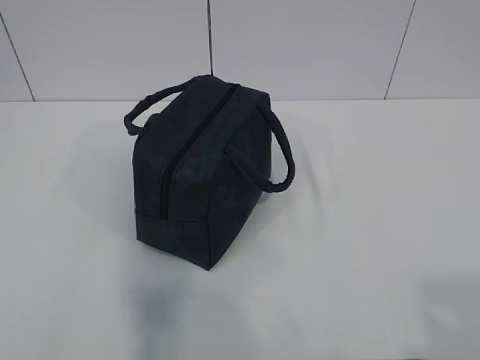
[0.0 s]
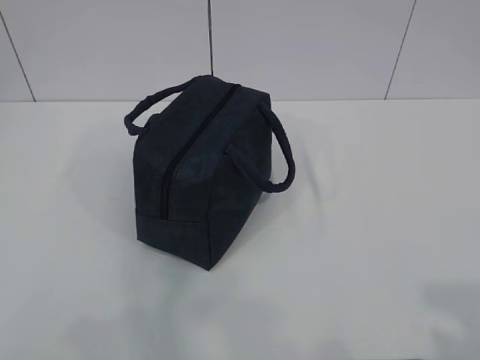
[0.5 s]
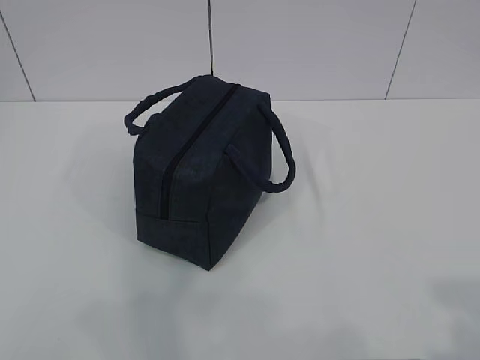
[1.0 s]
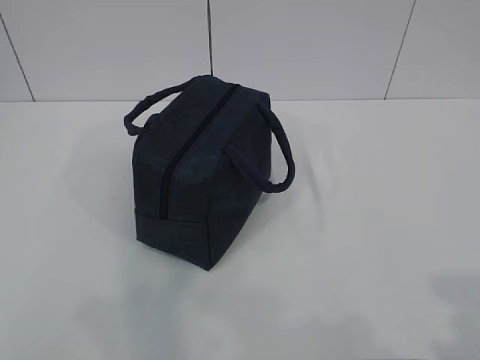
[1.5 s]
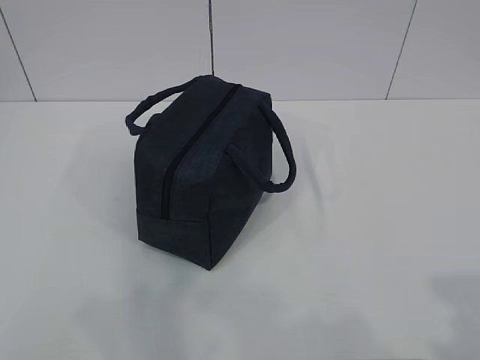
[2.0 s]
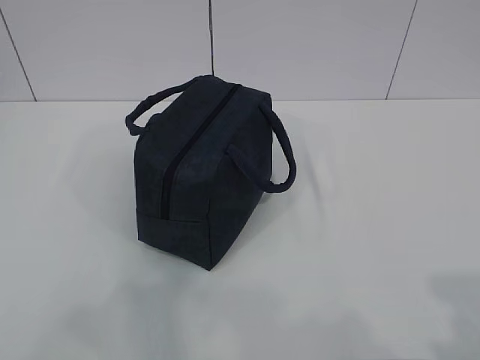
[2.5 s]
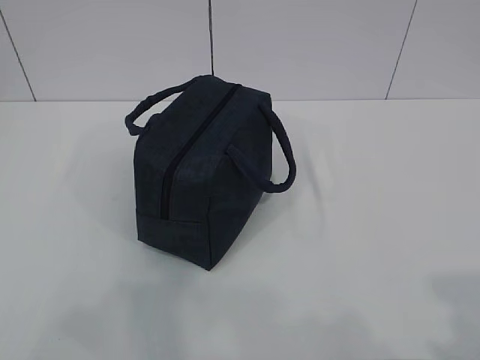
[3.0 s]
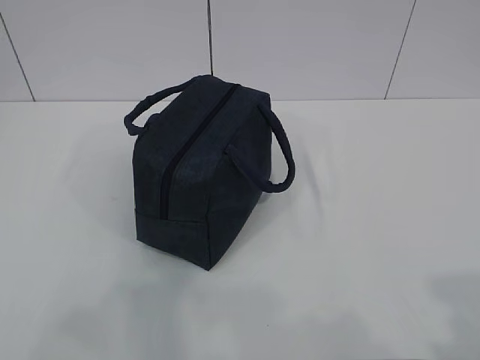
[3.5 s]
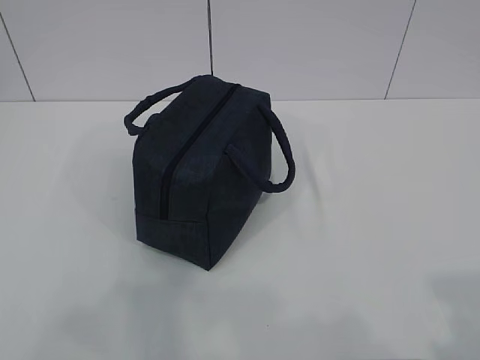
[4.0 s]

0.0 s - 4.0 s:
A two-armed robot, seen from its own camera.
0.0 s - 2.0 s: The grippers make only small movements.
2.0 s - 4.0 s: The grippers stay close to where they were, moving slightly.

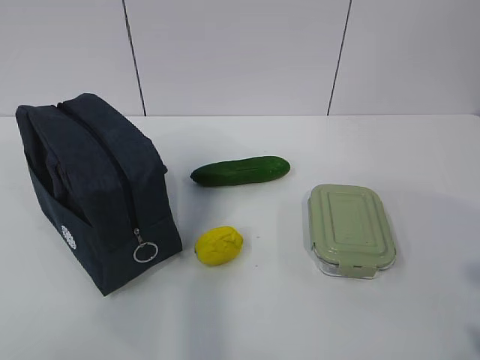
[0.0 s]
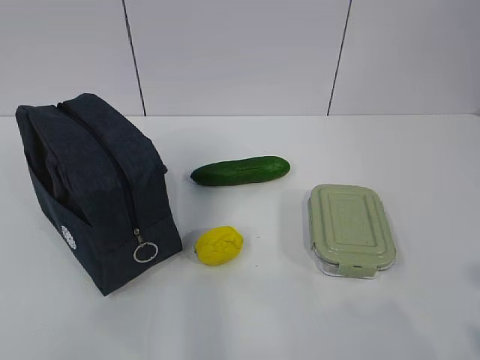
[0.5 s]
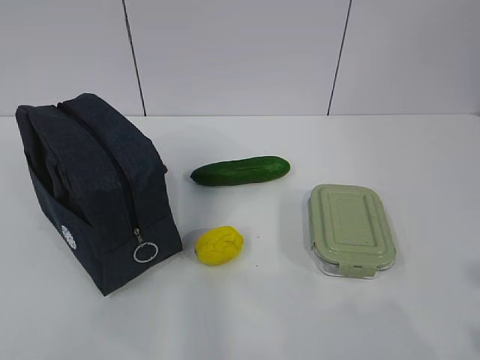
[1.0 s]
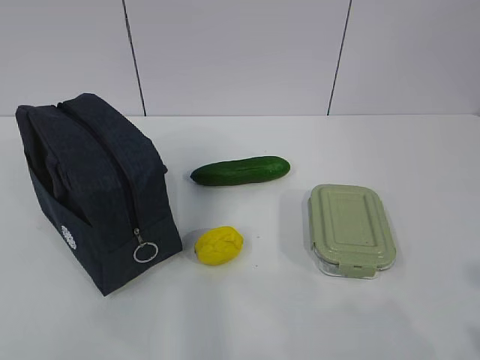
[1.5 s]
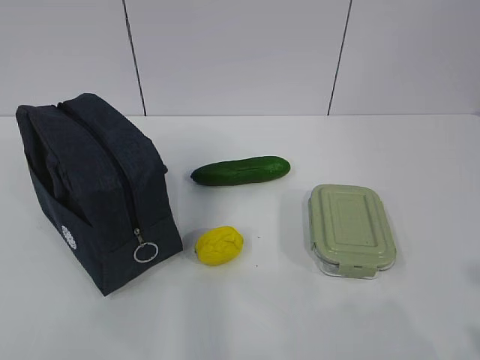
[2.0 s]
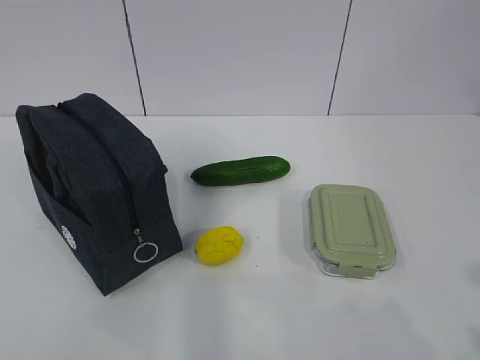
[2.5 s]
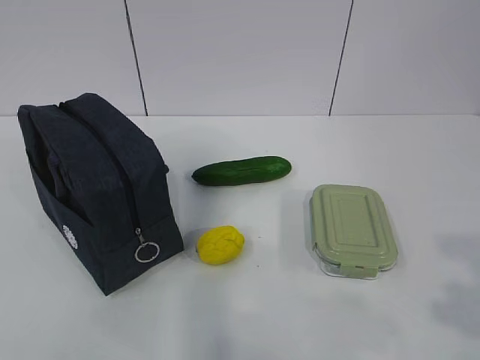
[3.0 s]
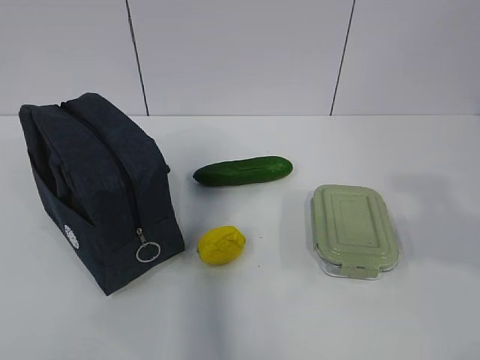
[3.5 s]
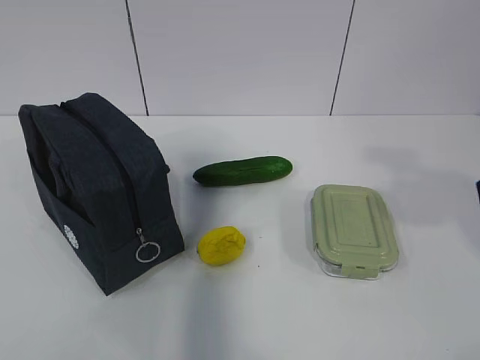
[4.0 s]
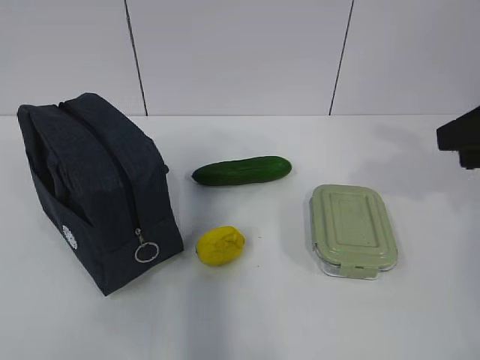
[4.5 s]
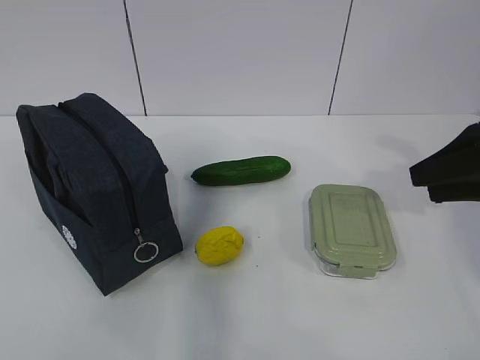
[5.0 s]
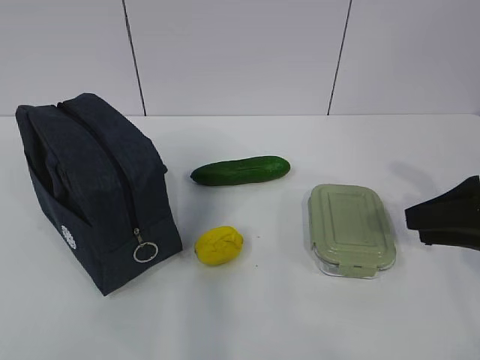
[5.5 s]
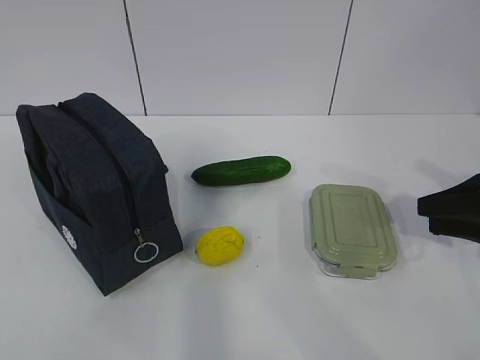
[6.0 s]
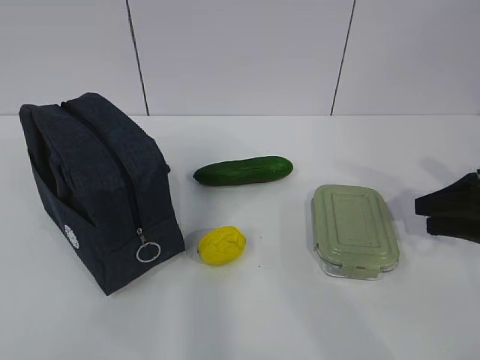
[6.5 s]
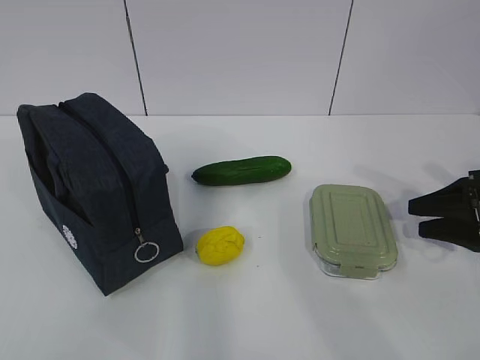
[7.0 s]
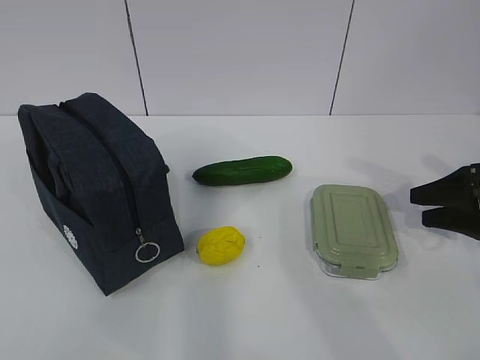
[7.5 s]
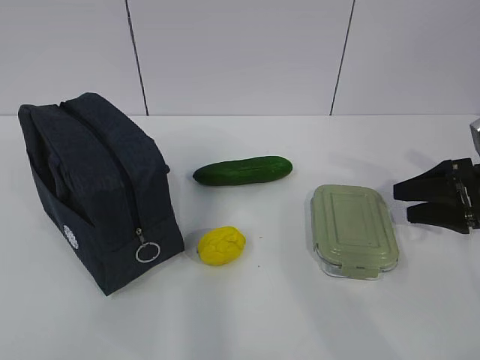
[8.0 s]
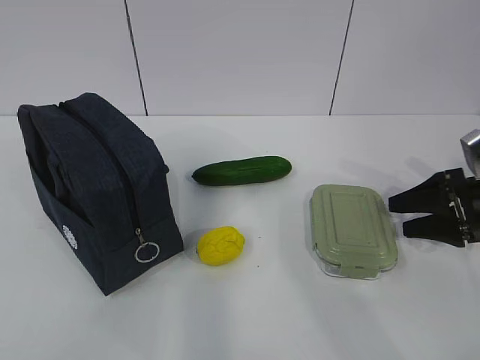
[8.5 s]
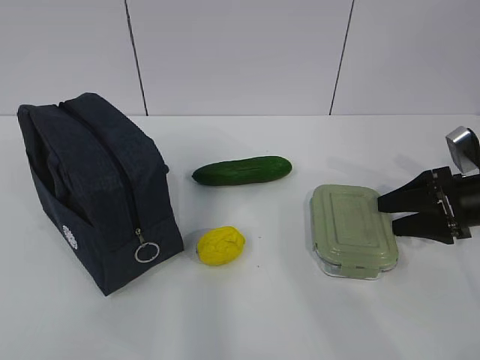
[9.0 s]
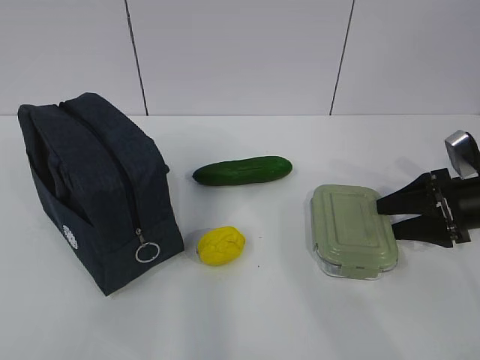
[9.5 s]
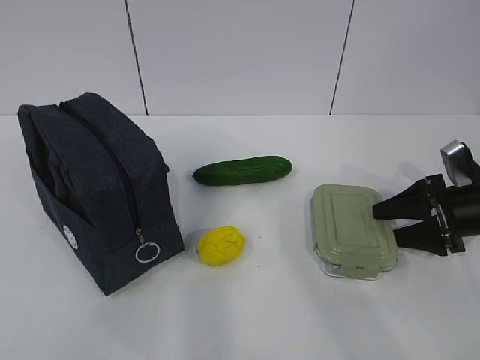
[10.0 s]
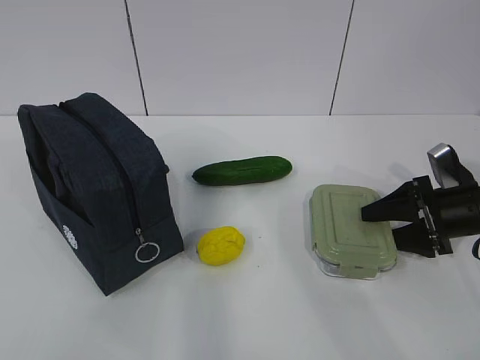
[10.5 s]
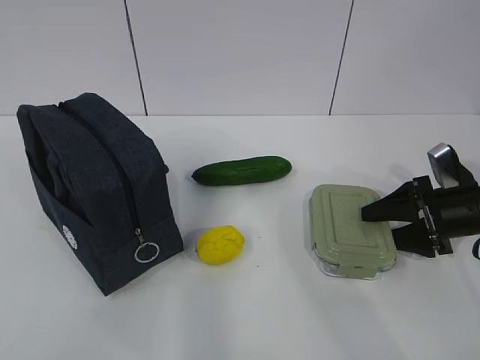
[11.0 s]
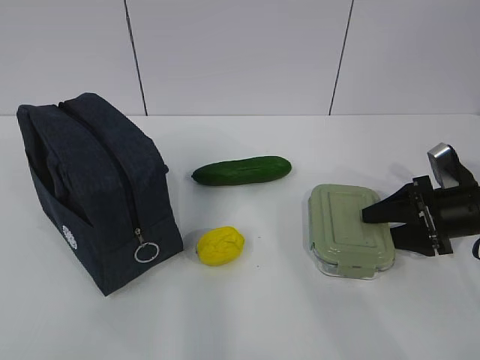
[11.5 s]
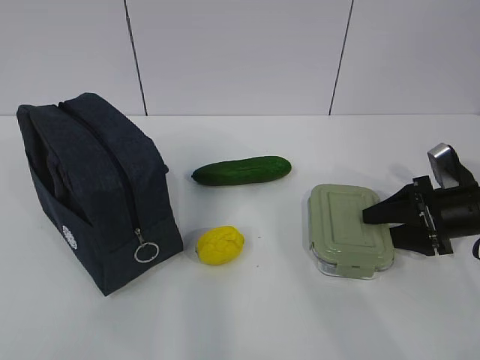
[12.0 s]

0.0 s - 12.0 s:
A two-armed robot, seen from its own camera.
2.0 s - 4.0 s: The right gripper heads forward, covering approximately 20 cm.
4.0 s - 6.0 s: The right gripper moves downward, forward and to the right, about 20 cm.
6.0 s - 8.0 s: The right gripper moves forward, some 5 cm.
8.0 s - 12.0 s: There are only small adjustments of the grippers.

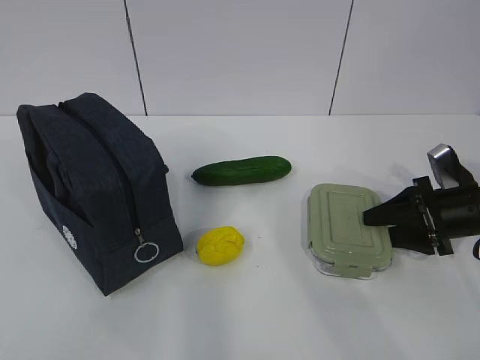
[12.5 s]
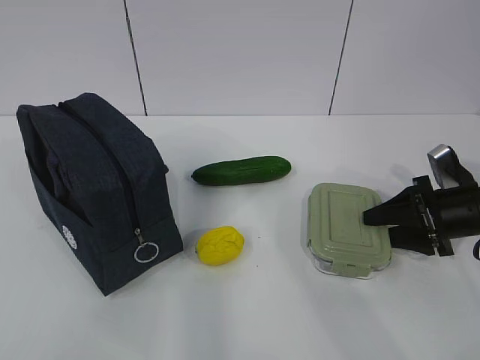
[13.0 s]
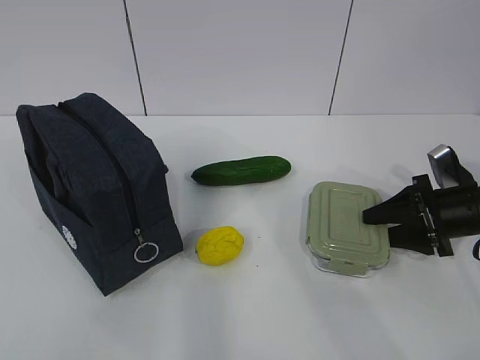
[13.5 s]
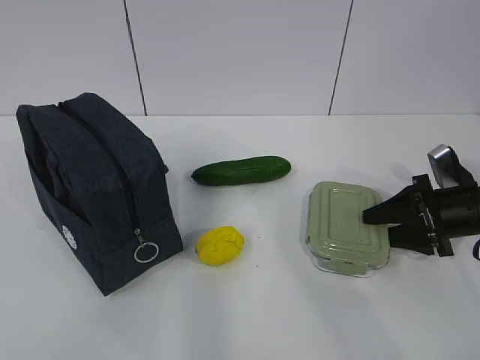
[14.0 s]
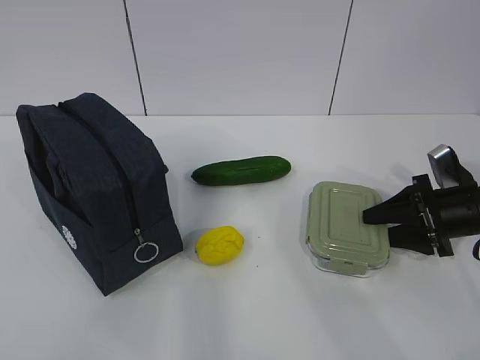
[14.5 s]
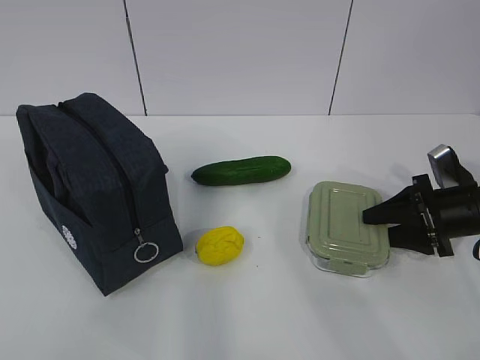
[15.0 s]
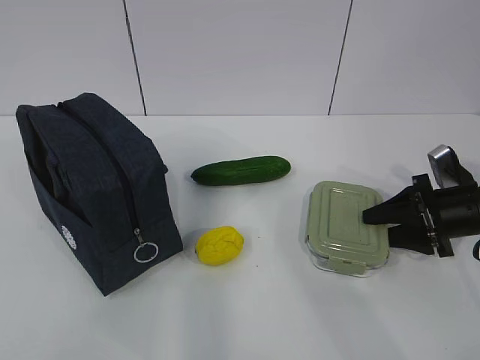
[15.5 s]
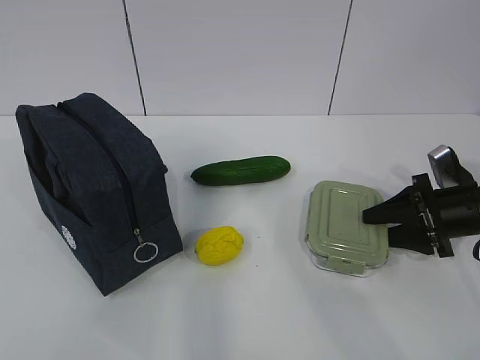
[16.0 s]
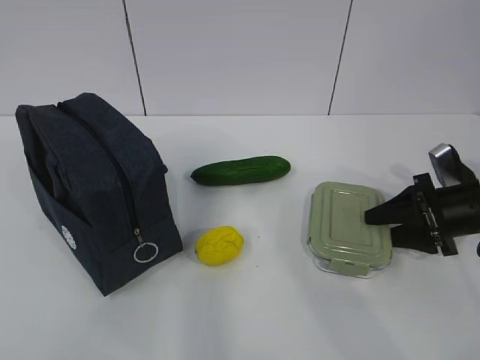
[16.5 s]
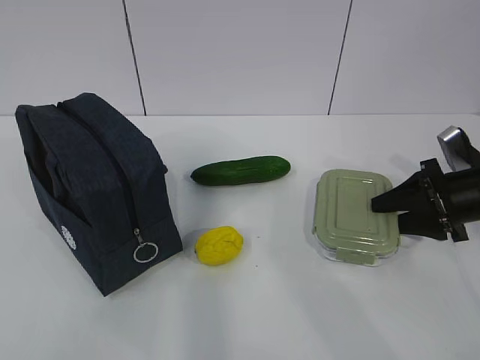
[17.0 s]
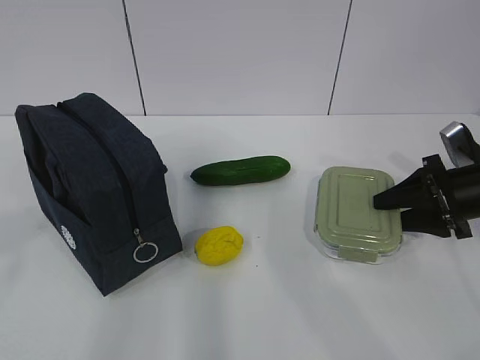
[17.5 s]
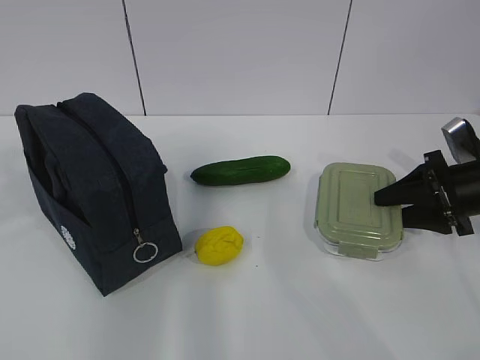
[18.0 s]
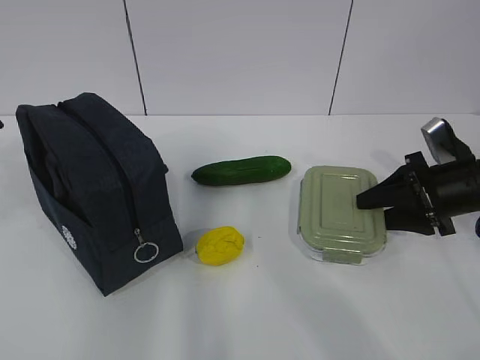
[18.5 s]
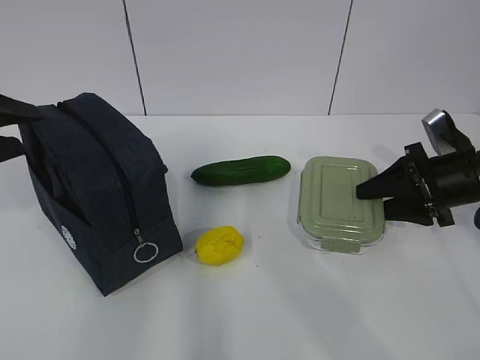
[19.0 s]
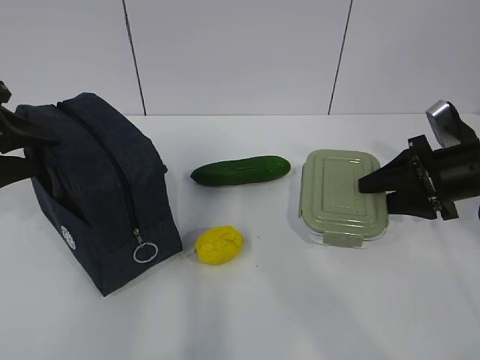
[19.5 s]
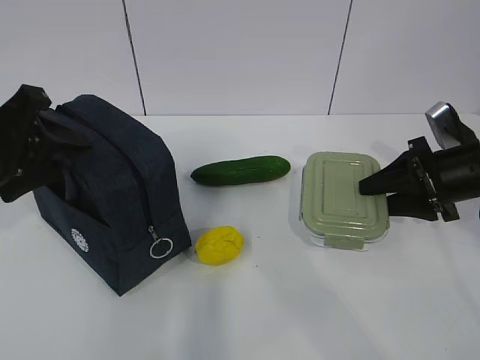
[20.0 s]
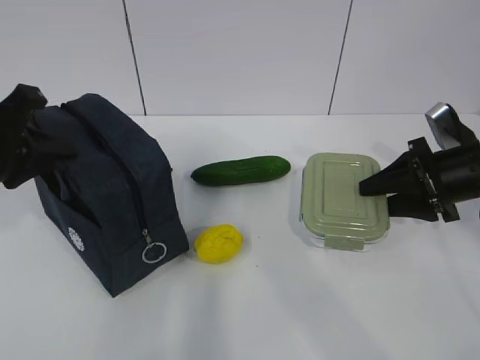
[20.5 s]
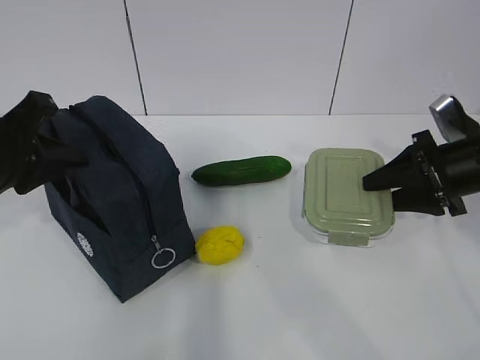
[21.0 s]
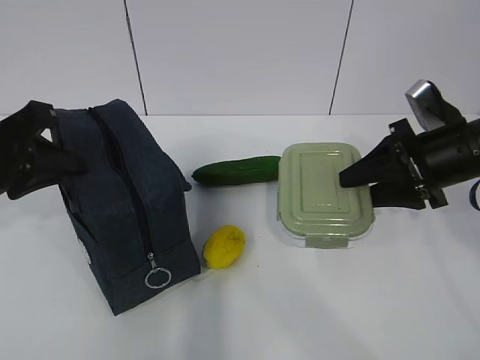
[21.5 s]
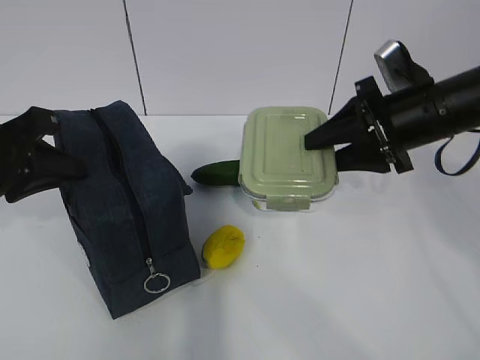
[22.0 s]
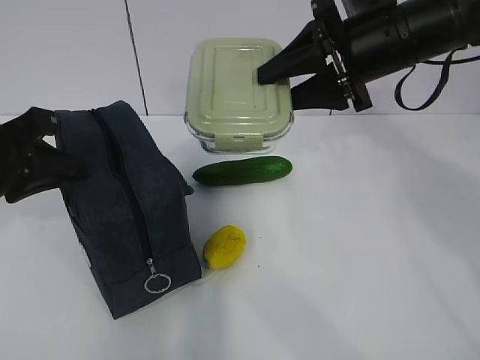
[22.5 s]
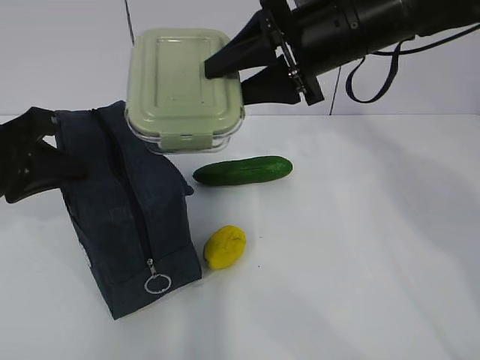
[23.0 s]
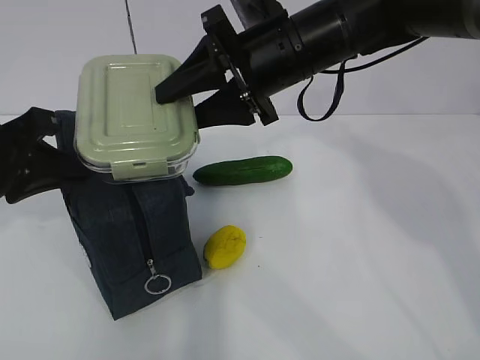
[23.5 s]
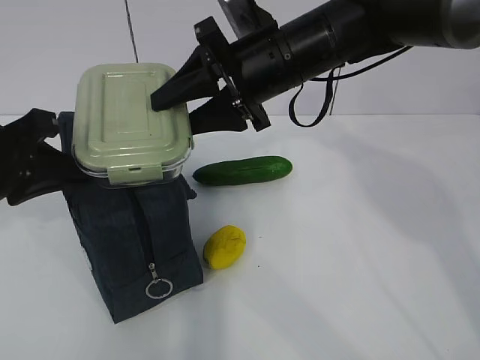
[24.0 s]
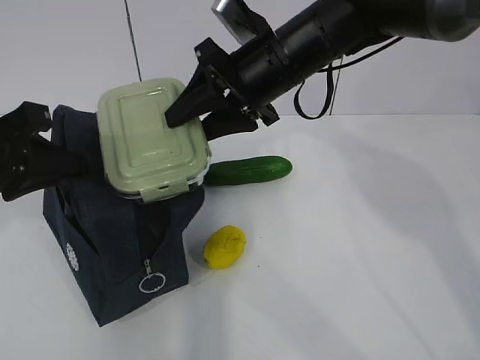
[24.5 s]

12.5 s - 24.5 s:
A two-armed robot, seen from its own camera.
Step, 14.0 s - 20.0 s: Grab the lunch bag with your left hand.
Step, 20.5 s - 23.0 s: Place it into the bag with your right hand.
12.5 s - 16.5 s: Neither gripper changes place.
16.5 s - 18.5 s: The left gripper travels forward by approximately 20 cm.
18.5 s - 20.5 s: The left gripper moves some 5 cm, and closes up.
20.5 s - 22.5 s: The right gripper moves upward and to the left, roughly 20 cm.
22.5 s - 24.5 s: The right gripper is displaced to the left by some 10 cm.
